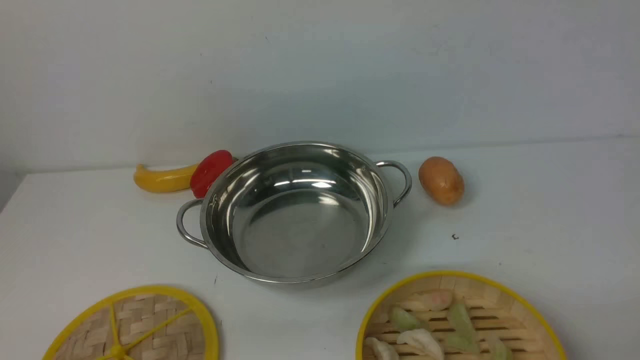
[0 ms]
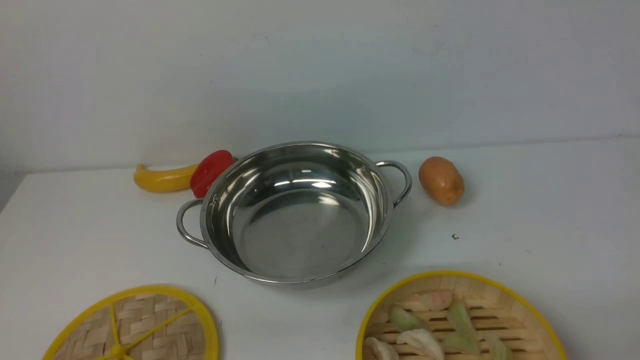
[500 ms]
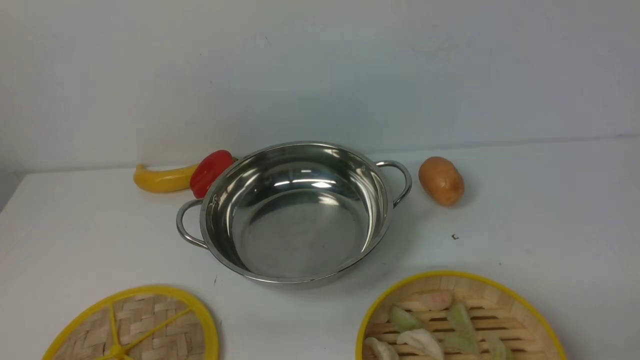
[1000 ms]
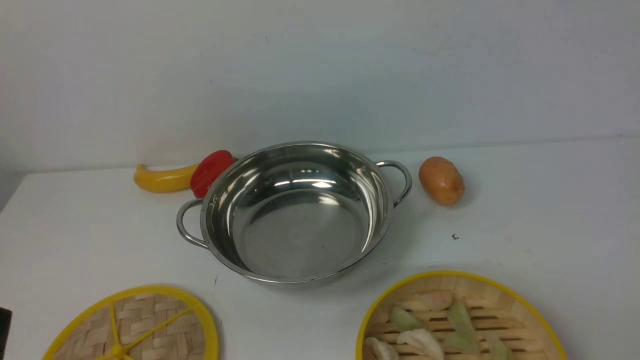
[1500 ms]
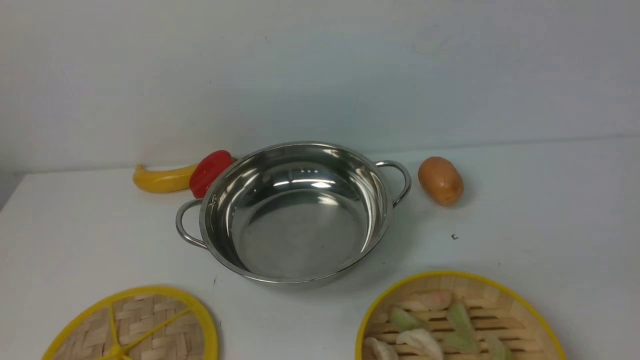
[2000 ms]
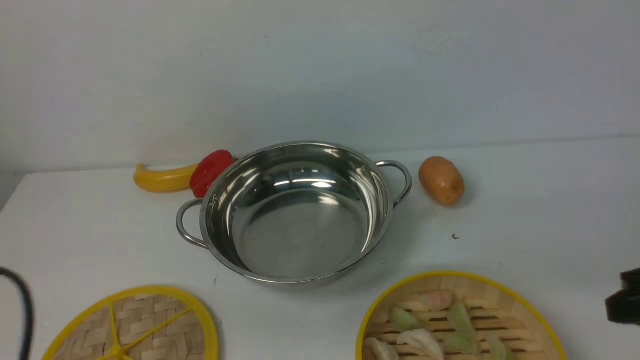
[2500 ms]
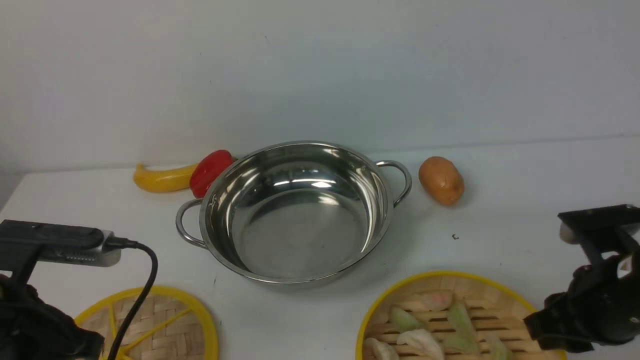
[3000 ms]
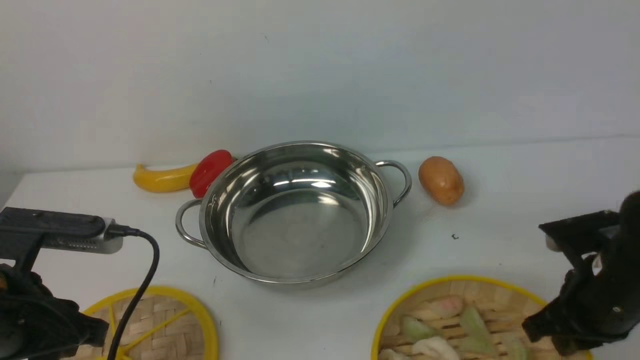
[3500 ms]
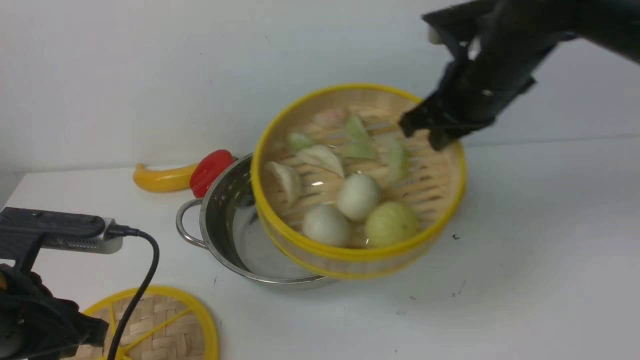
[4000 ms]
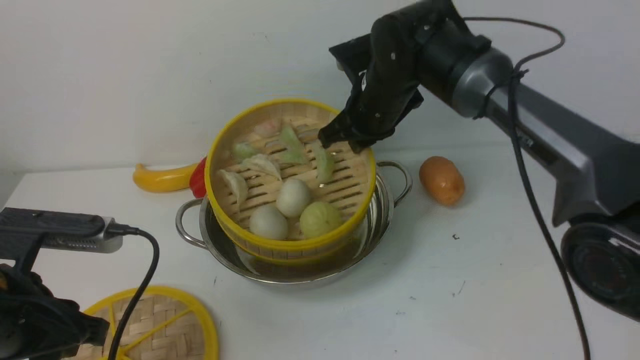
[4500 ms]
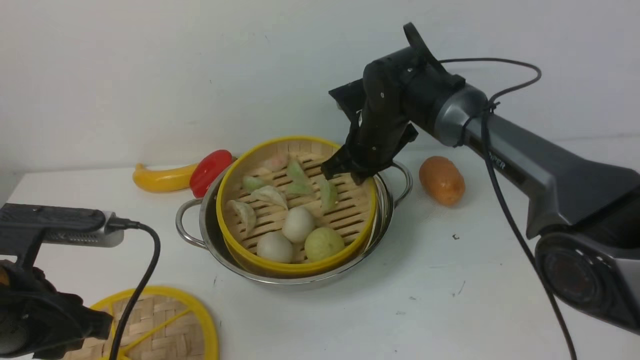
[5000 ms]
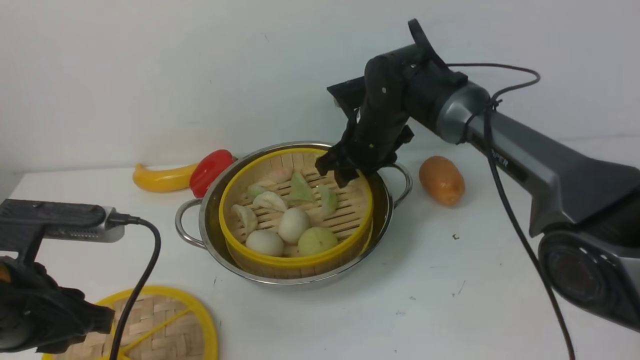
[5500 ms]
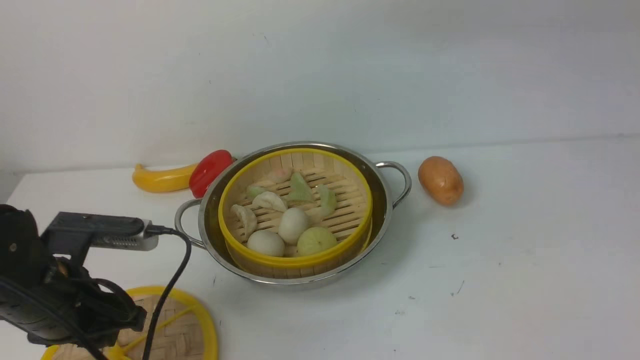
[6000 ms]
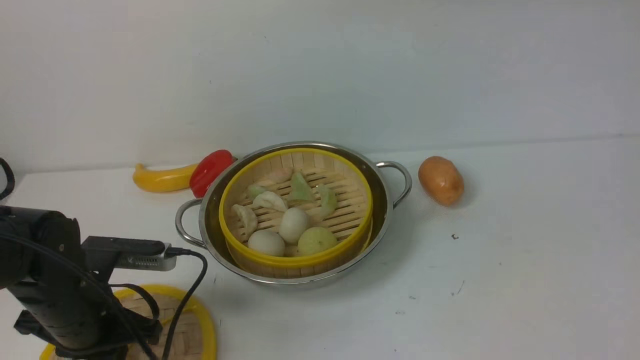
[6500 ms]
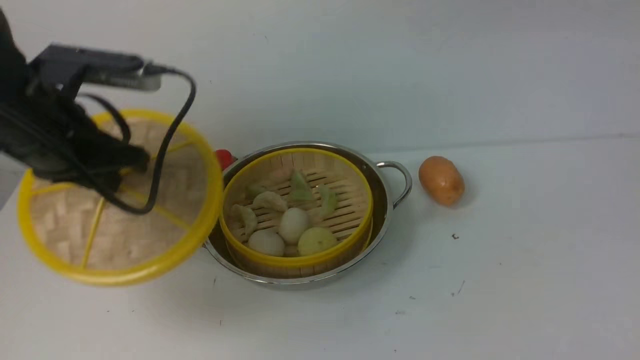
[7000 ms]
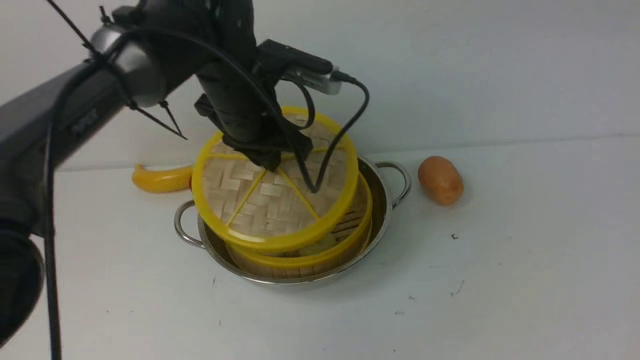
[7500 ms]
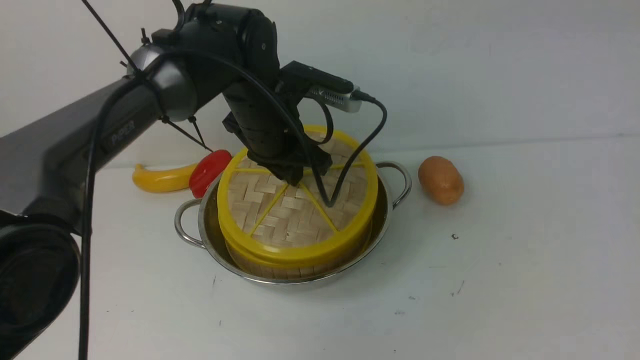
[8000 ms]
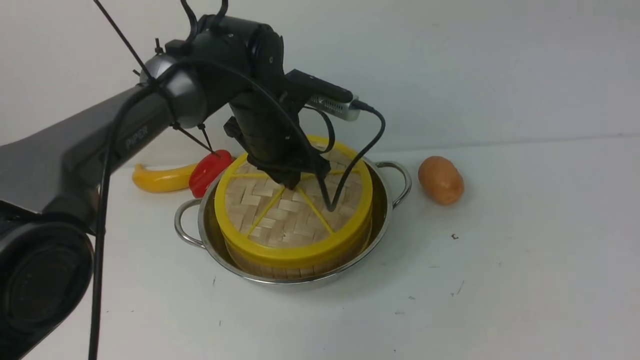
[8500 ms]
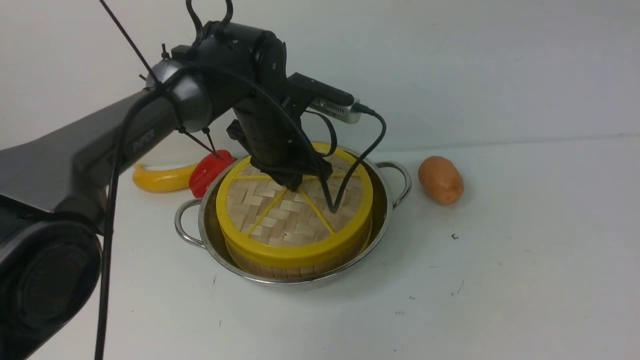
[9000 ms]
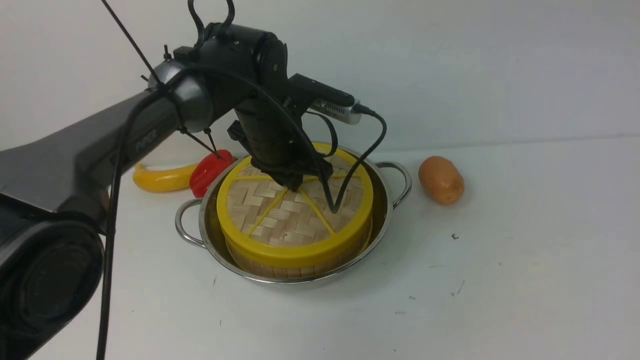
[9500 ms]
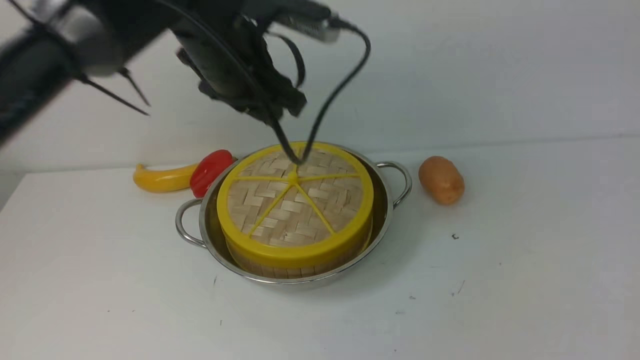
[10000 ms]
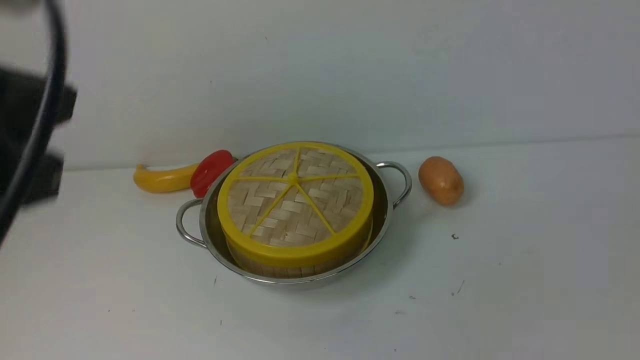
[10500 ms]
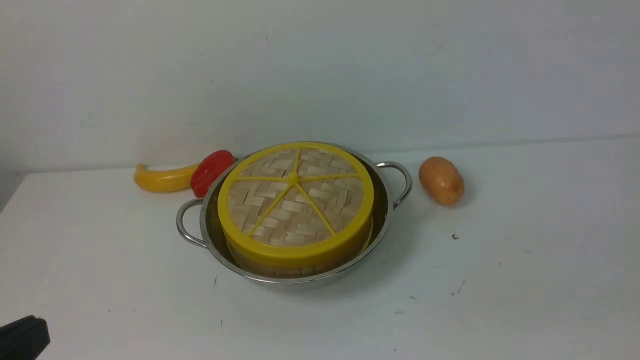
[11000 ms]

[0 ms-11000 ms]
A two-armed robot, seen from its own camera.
Task of the whole recording: place the steamer in the pot on the white table, and put the lid on the steamer.
Step, 0 ms to 3500 ms: use the right arm to lift the steamer closest to it.
Step, 4000 ms to 5500 ms: use the right arm to put the steamer into the iron steamer pot in the middle.
Step, 6000 ms to 7000 ms: use the left arm to lift the lid of the steamer.
Step, 7500 ms to 10000 ms: use the left arm to place the steamer lid on the steamer.
2000 ms to 3500 ms: The left gripper moves forward, about 15 cm. Meanwhile the right gripper is displaced forward and downward by some 20 cm, and closes its fingers.
3500 ms to 5500 ms: The right gripper shifts roughly 30 cm forward and to the left, and opens its fingers.
5500 ms to 7500 ms: The left gripper moves forward and to the right, some 25 cm, and closes up. Meanwhile the right gripper moves upward, backward and to the right, some 40 cm.
7500 ms to 9000 ms: The left gripper goes approximately 5 cm downward.
9000 ms to 11000 ms: The right gripper travels downward and backward by about 30 cm, and closes its fingers. Meanwhile the left gripper heads backward and to the left, covering approximately 40 cm, and closes its fingers.

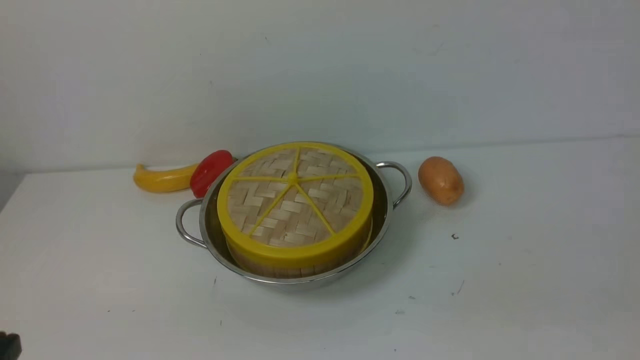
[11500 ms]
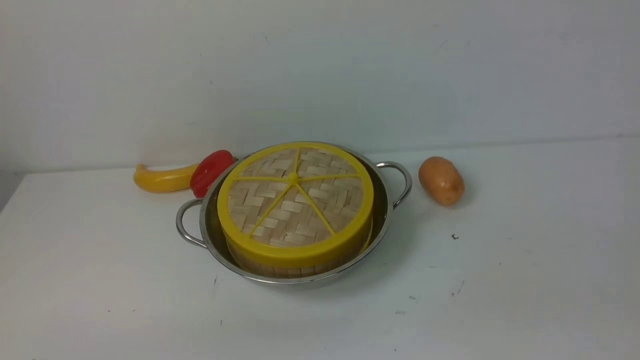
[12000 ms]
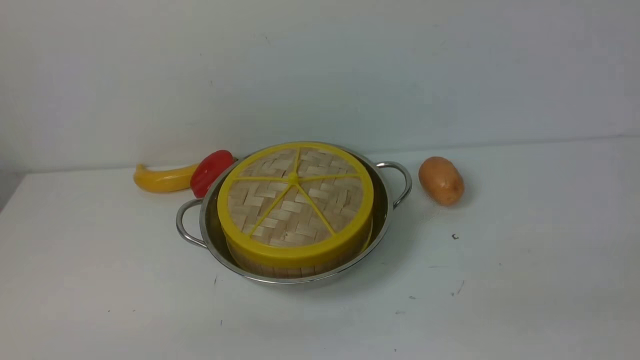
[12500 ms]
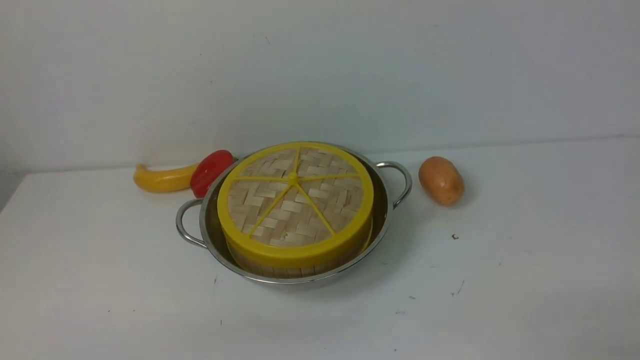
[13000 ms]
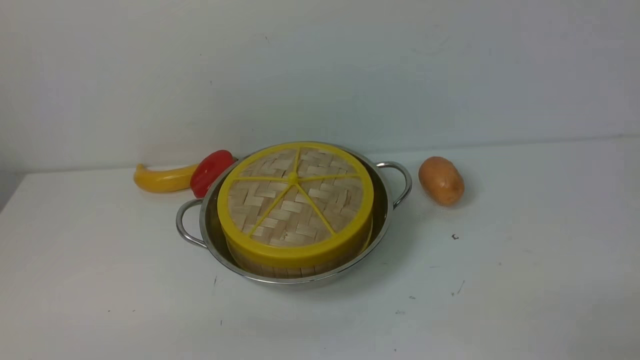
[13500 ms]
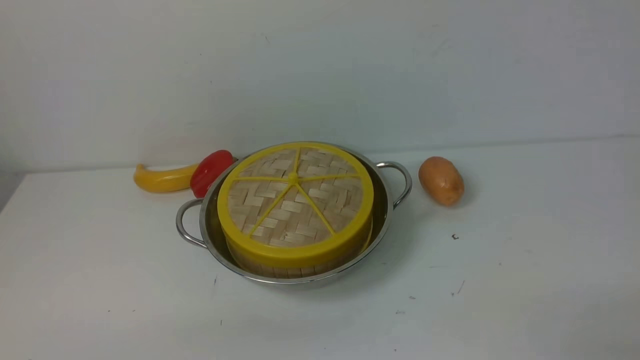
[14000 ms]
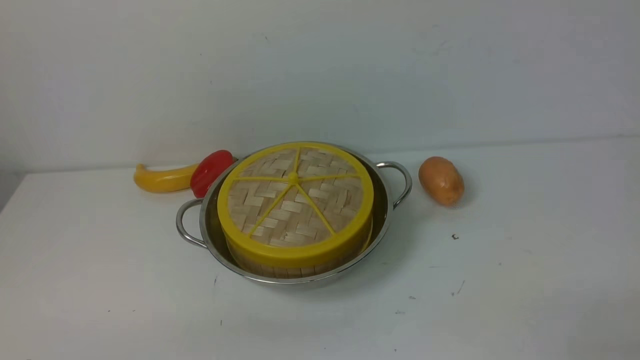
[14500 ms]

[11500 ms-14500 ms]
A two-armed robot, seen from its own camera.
Task of the whole recording: place the steamer in the pot on the white table, and put the lid on the steamer.
13000 ms to 14500 ms: Both grippers stay put.

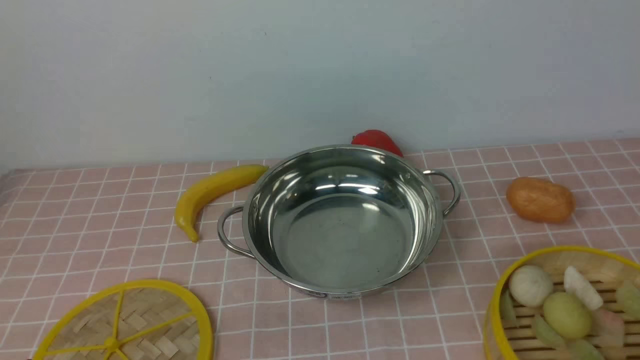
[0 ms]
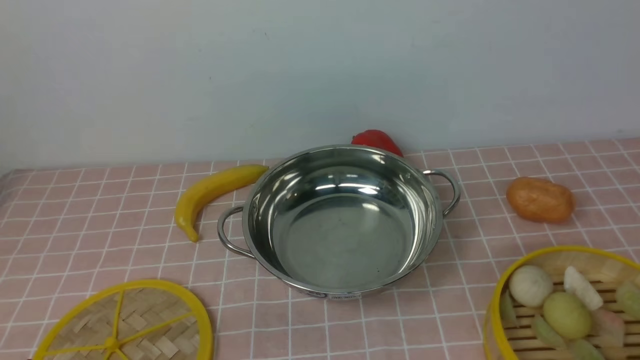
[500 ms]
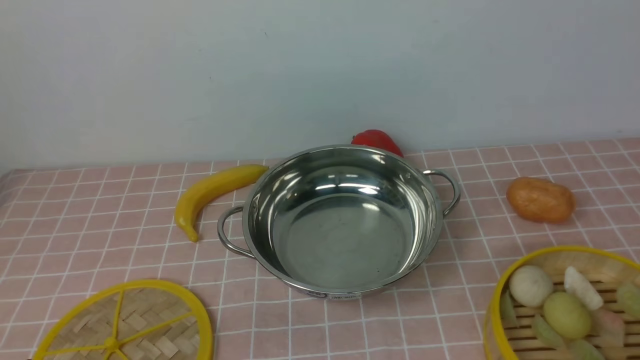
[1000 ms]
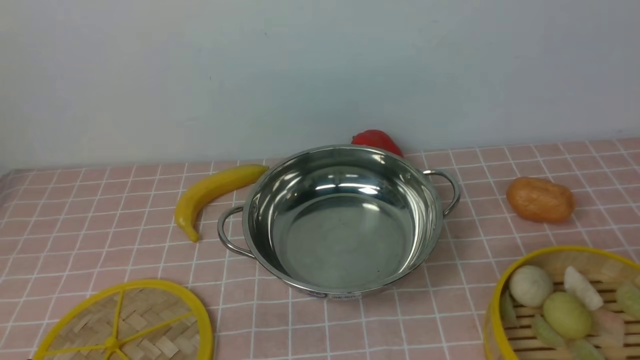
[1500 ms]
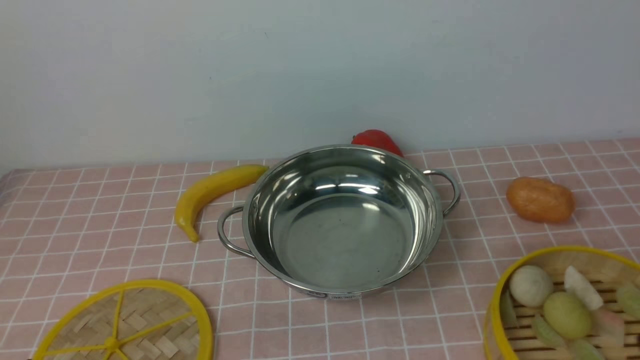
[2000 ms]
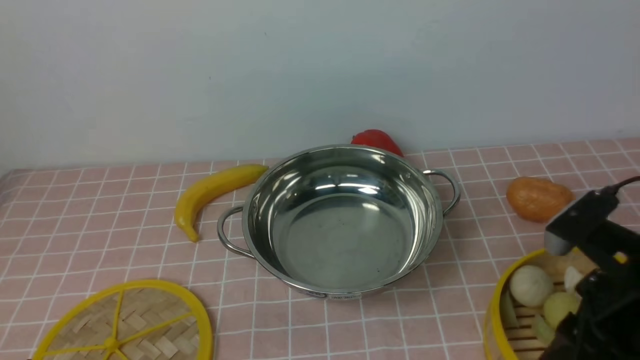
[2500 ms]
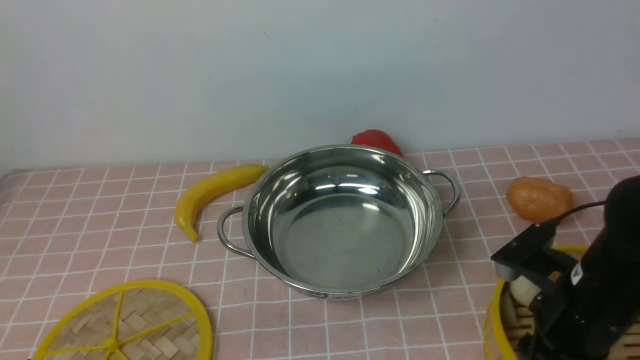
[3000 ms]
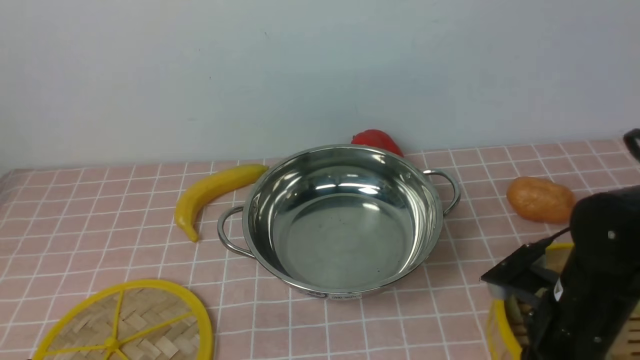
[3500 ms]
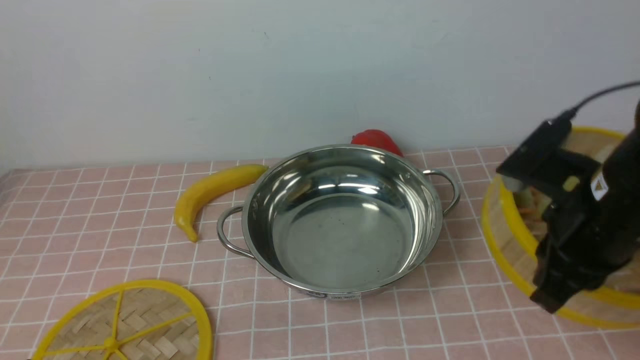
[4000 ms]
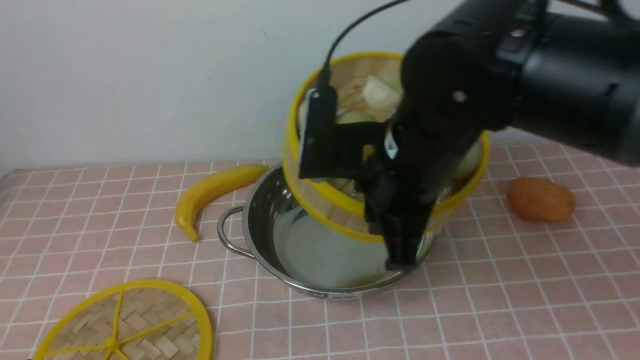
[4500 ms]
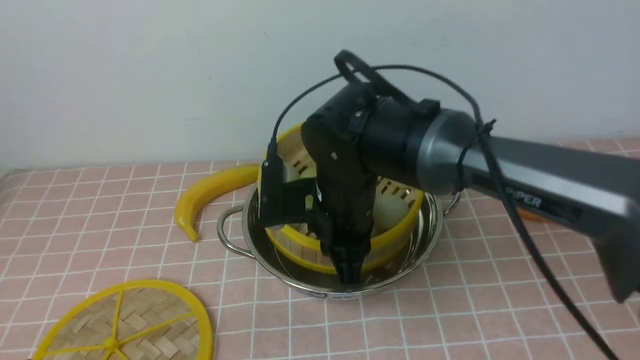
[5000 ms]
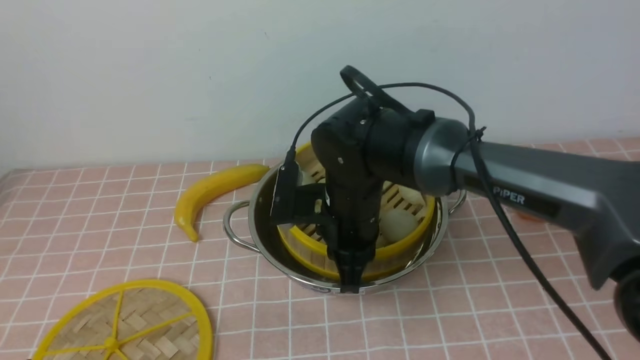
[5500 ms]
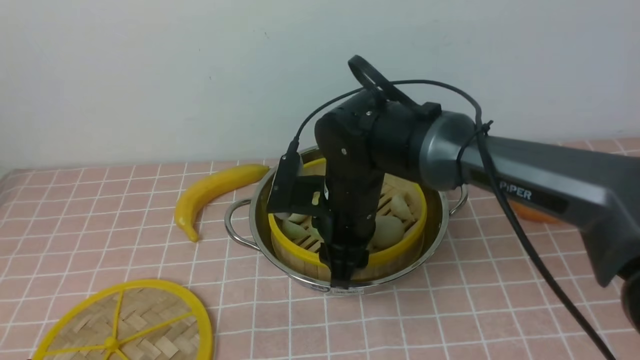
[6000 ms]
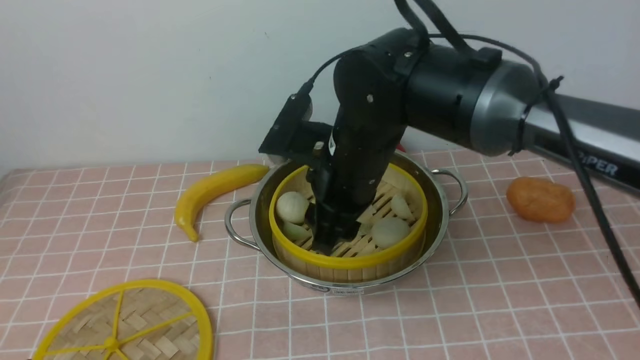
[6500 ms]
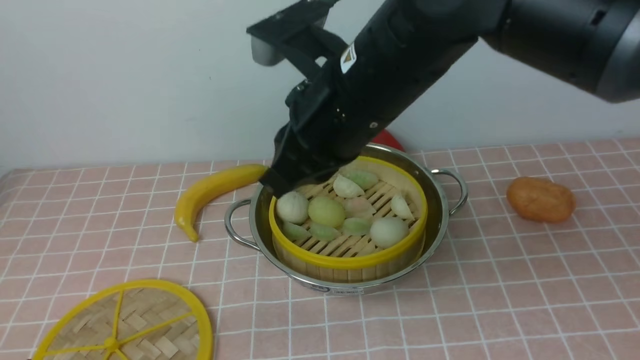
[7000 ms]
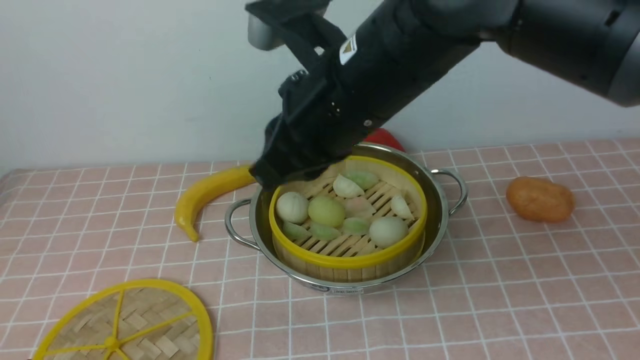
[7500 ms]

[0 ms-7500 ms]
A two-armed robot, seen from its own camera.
Task of the whole recording: place the steamer in the pot on the pink tablecloth, and put the lid on the steamer.
Step, 0 ms to 3500 ms: use the right arm to lift the steamer closest to it.
Step, 4000 ms to 6000 ms: use the right arm to put the steamer into the iron steamer pot in the middle.
2000 ms to 4000 ms: The right gripper shifts roughly 15 cm forward and to the left, and closes its fingers.
4000 ms to 5500 ms: The right gripper heads to the left, forward and downward, covering approximately 20 cm.
5500 ms to 7500 ms: The right gripper is displaced upward and backward by approximately 15 cm, and opens and closes again.
